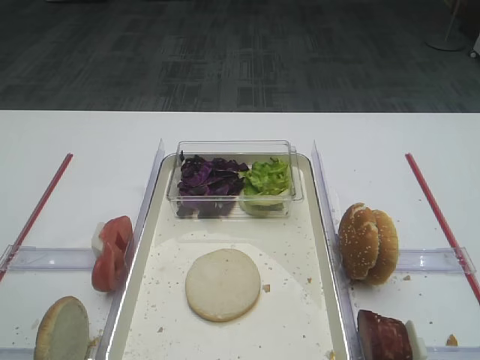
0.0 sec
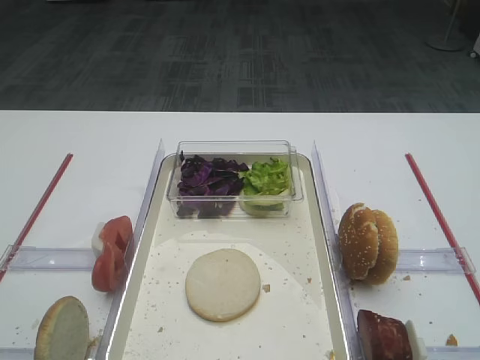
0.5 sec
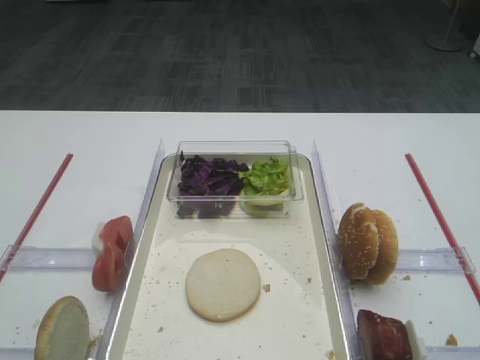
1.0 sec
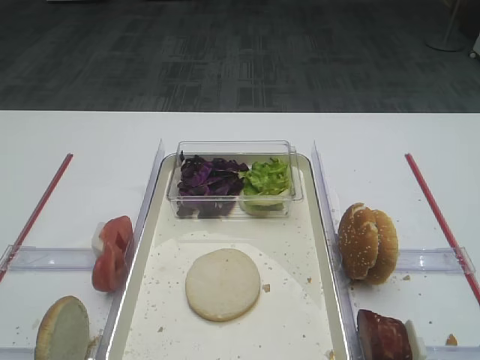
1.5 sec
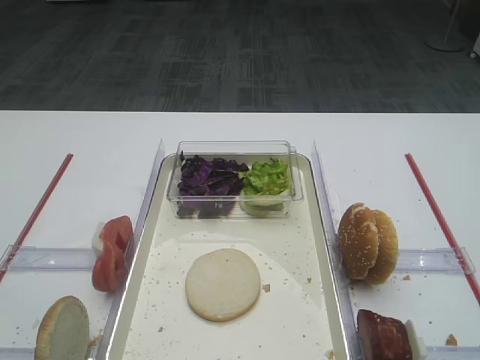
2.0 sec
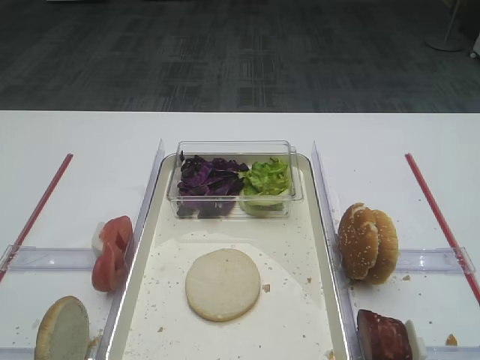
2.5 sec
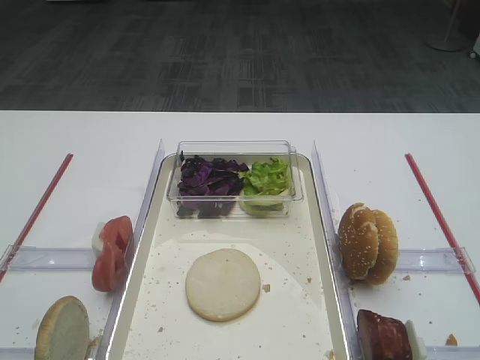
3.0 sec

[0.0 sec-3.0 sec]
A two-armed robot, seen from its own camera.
1.5 sec to 3.0 sec: Neither gripper changes place.

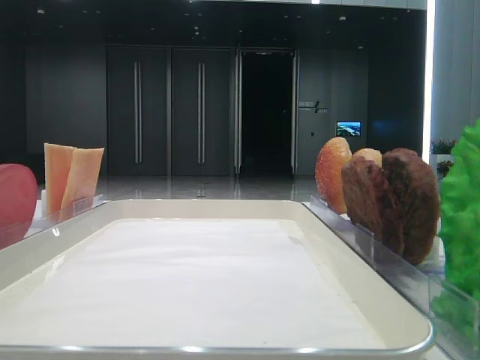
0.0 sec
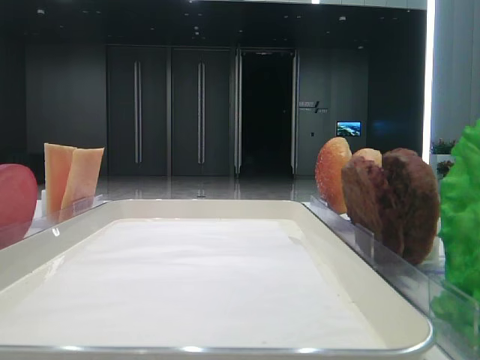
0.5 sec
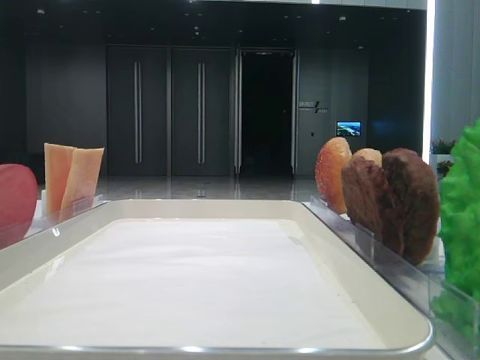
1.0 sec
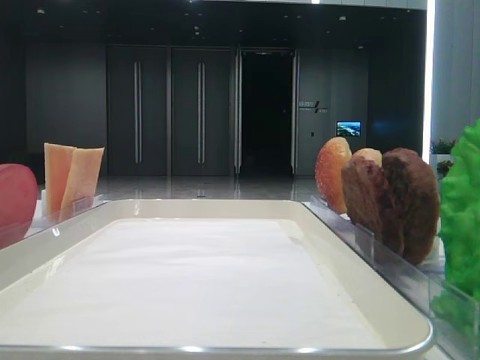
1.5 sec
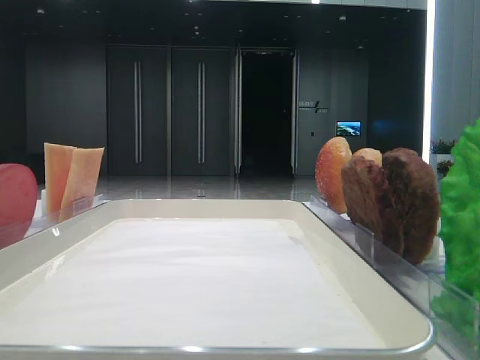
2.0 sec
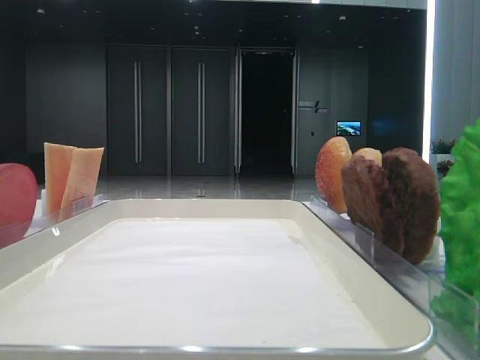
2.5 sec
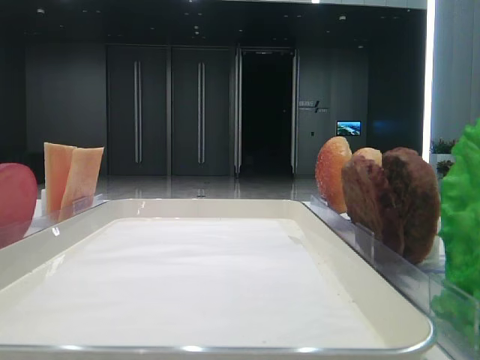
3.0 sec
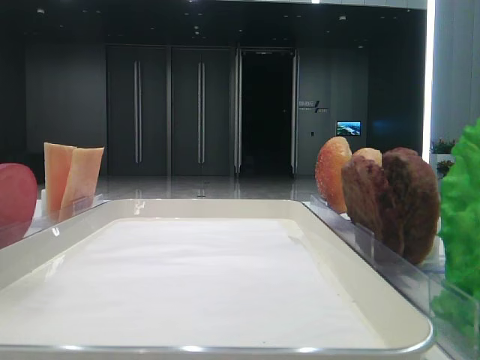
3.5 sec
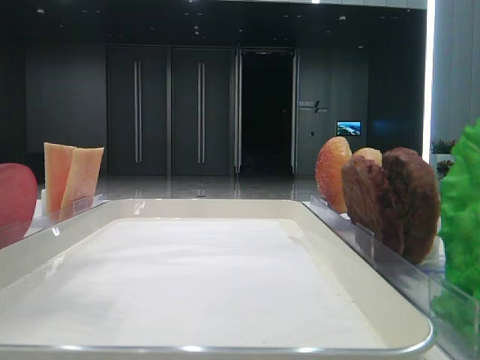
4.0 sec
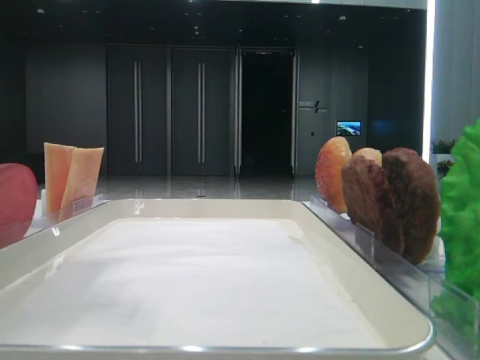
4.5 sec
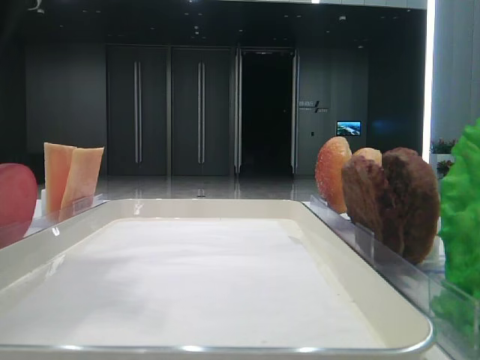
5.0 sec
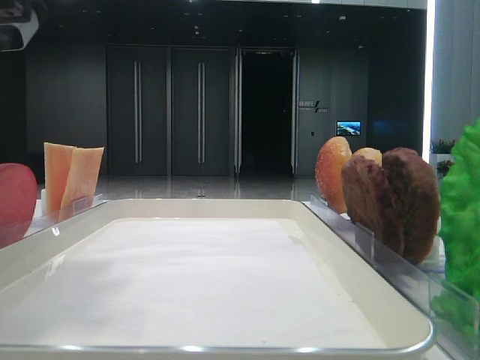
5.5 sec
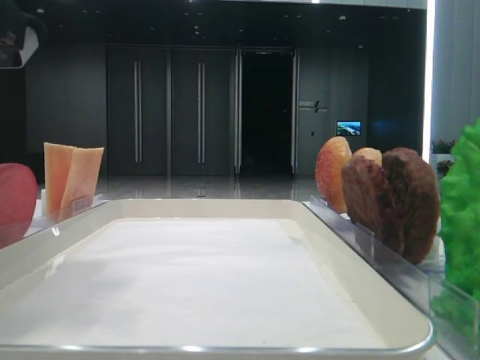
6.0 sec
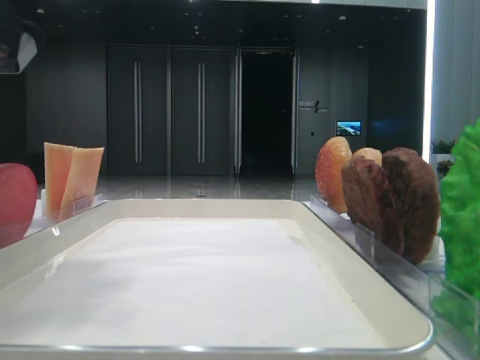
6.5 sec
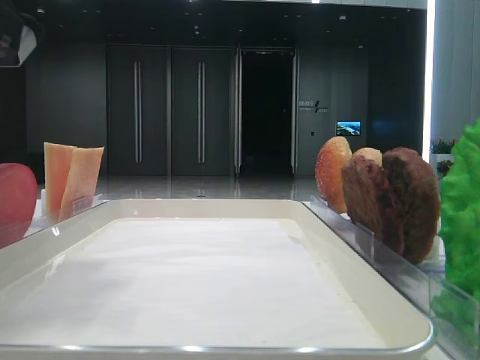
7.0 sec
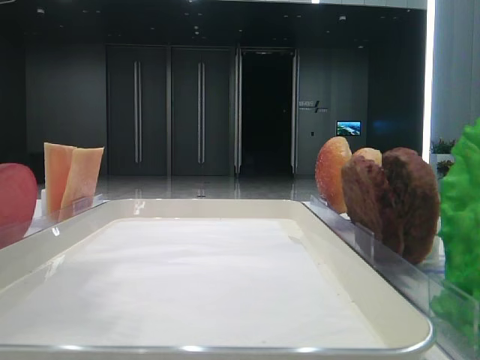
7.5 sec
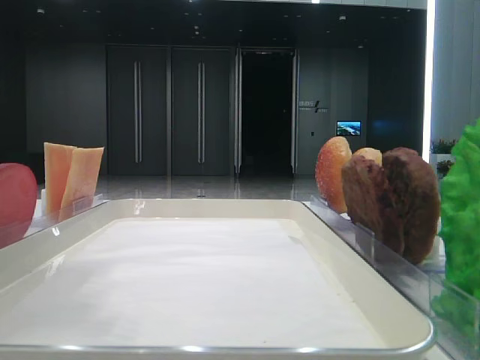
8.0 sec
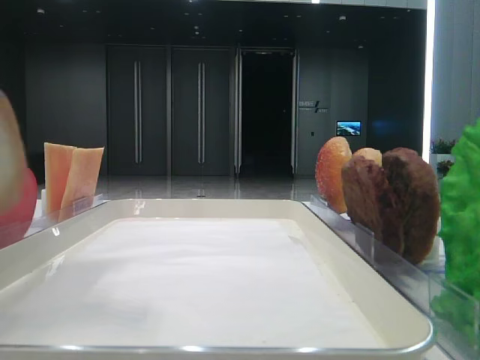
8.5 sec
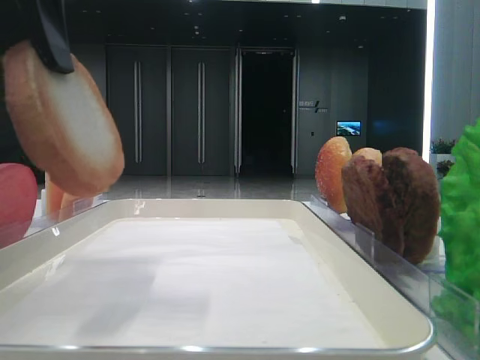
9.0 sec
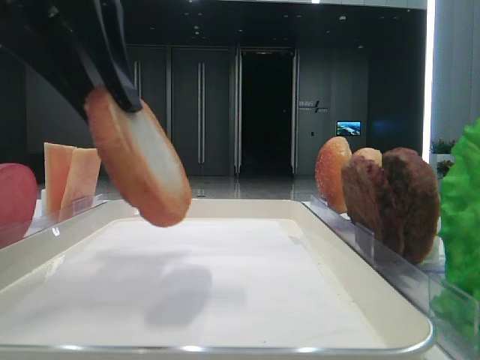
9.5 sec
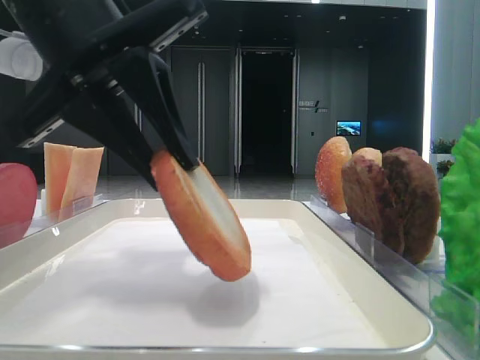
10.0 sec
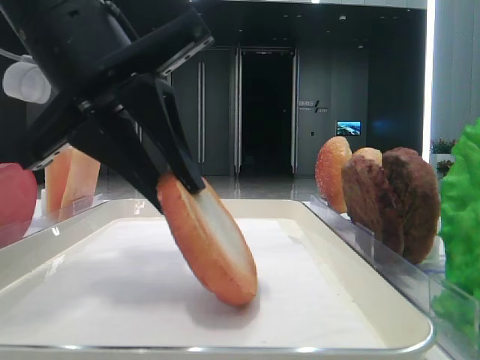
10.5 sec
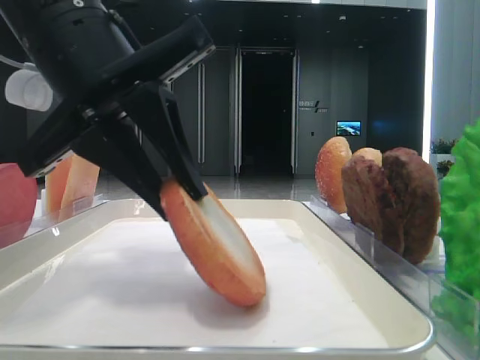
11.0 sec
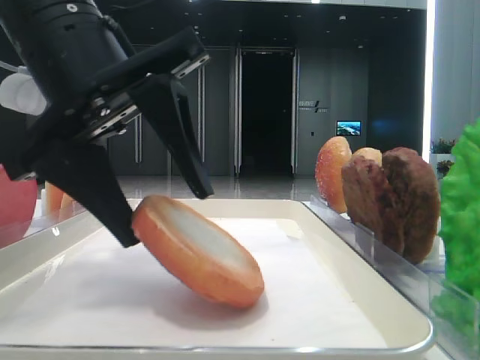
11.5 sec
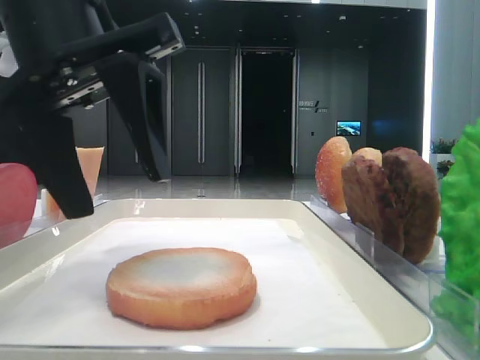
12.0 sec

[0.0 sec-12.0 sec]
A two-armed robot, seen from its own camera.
Step, 0.0 sec to 7.0 sec: Pick up the bottom bread with the left hand.
Step, 7.5 sec to 11.5 sec: Place the bread on the tray with the left hand.
2.0 sec to 4.0 sec: The left gripper moves to the right and forward, approximately 15 cm.
4.0 sec to 6.0 sec: The left gripper shifts roughly 10 cm downward.
8.0 sec to 10.0 sec: The left gripper heads to the right and downward, covering approximately 10 cm.
10.0 sec to 12.0 sec: The left gripper opens its fingers.

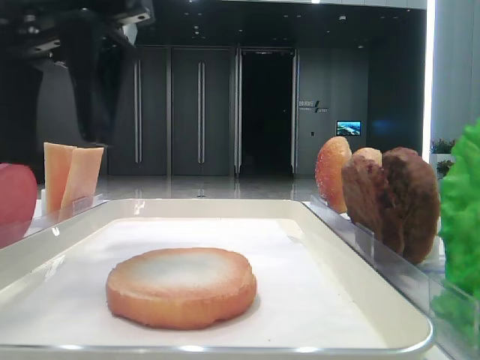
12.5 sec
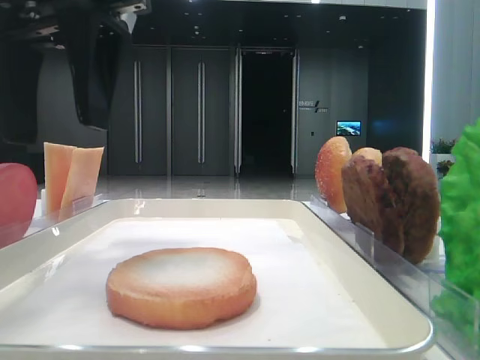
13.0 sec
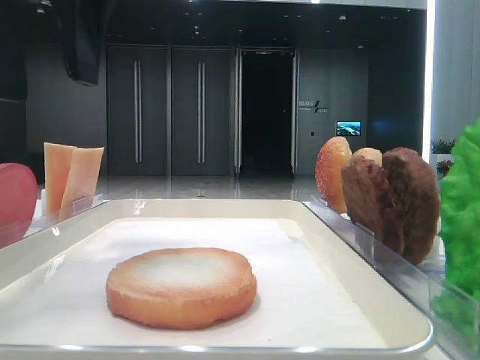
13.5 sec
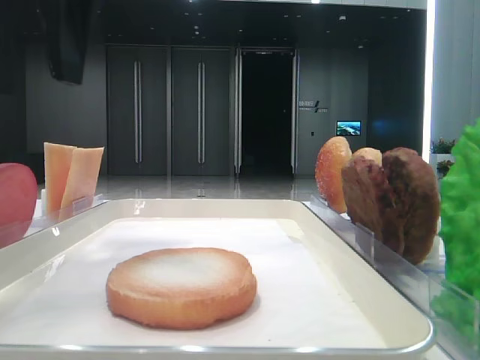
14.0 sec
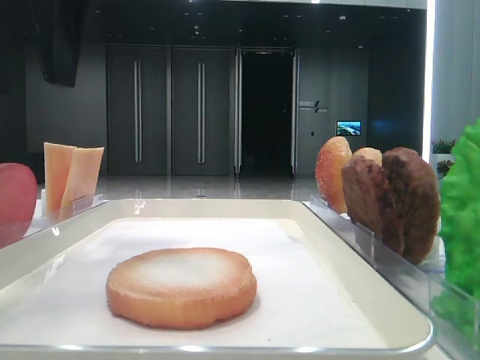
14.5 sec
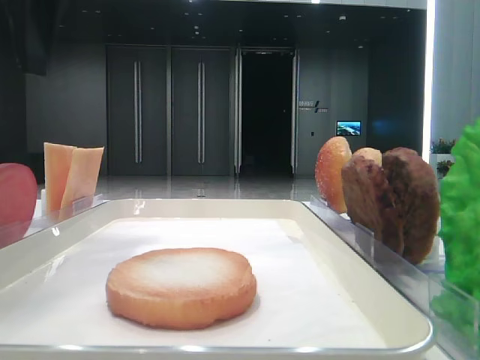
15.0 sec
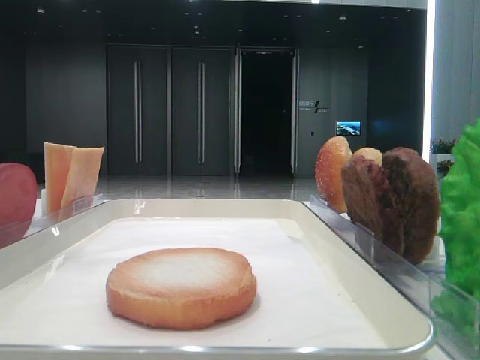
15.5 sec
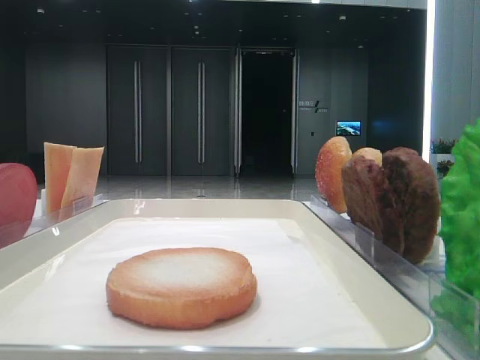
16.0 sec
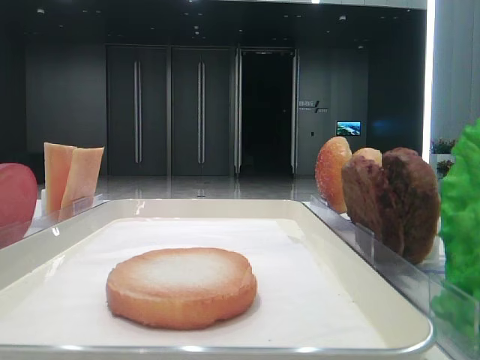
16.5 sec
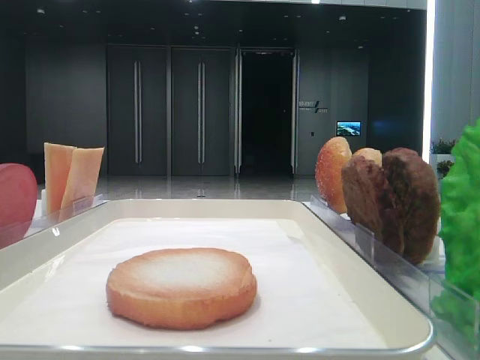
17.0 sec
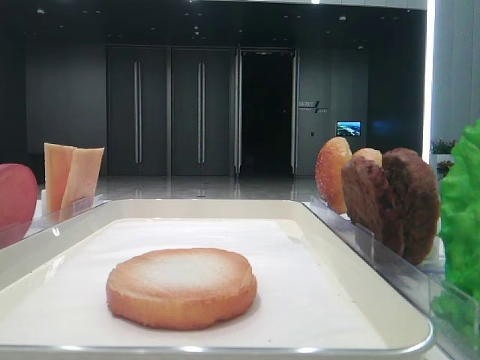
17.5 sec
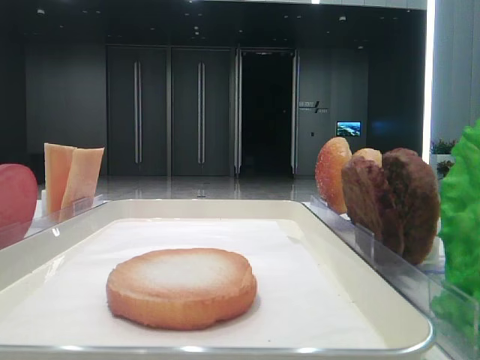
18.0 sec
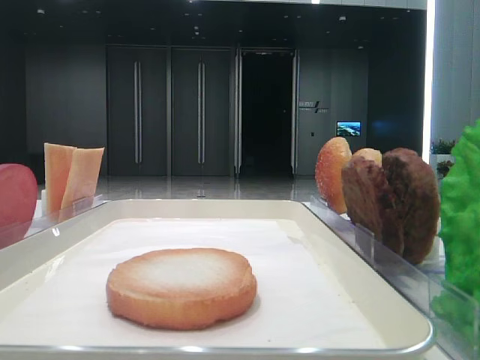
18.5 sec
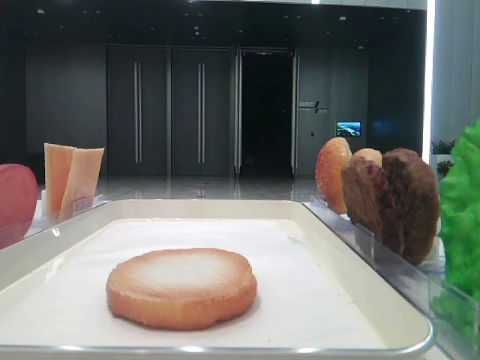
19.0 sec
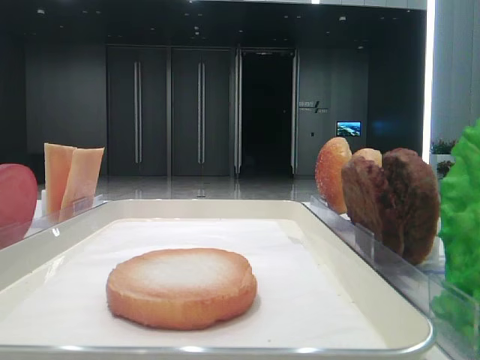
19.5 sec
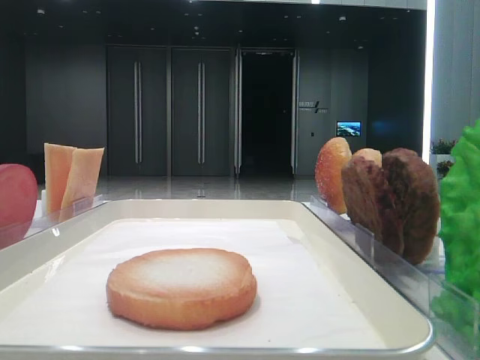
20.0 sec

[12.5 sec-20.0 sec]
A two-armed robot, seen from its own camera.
12.5 sec to 14.5 sec: The left gripper ends up some 5 cm from where it was.
14.5 sec to 16.5 sec: The left gripper is displaced to the left by roughly 15 cm.

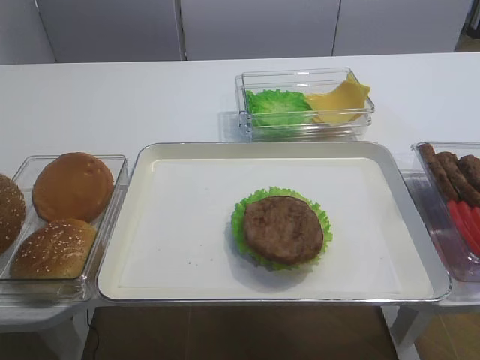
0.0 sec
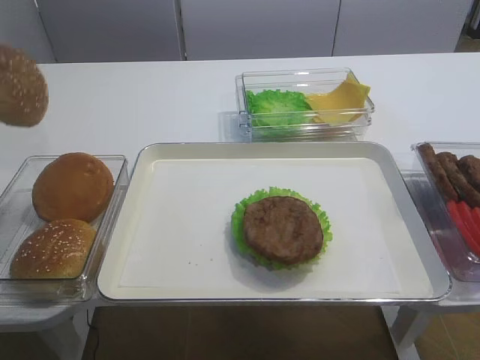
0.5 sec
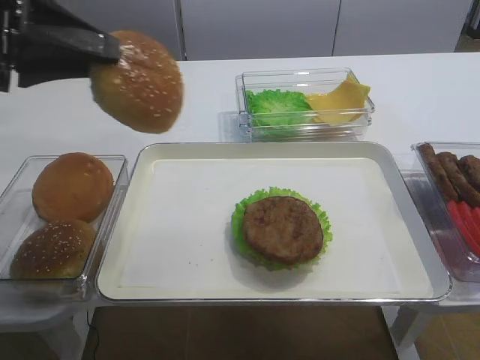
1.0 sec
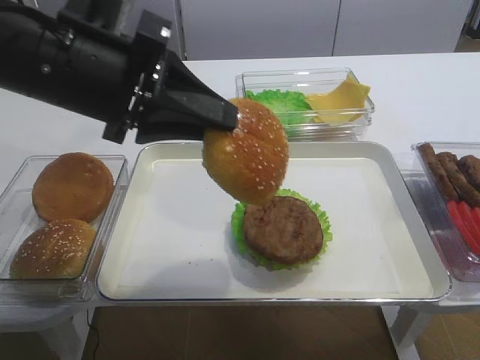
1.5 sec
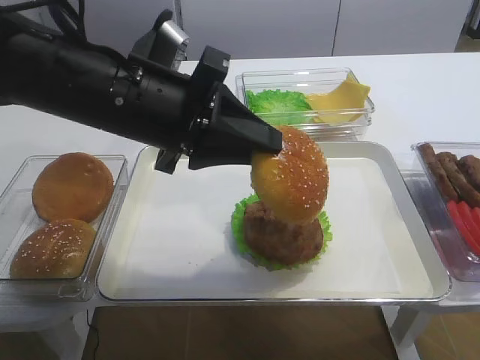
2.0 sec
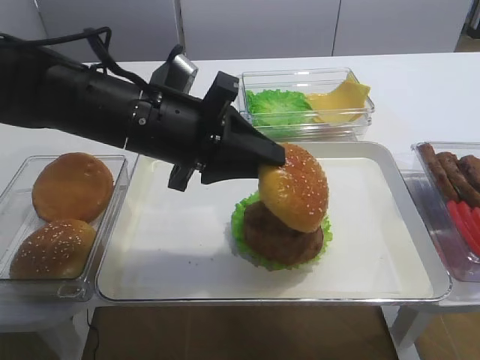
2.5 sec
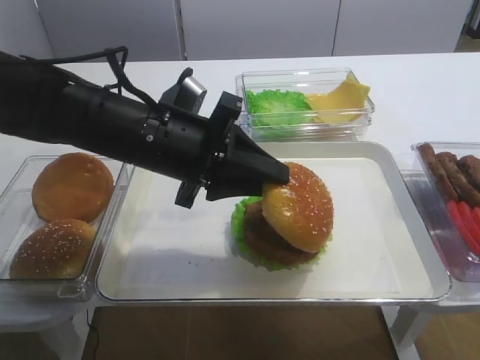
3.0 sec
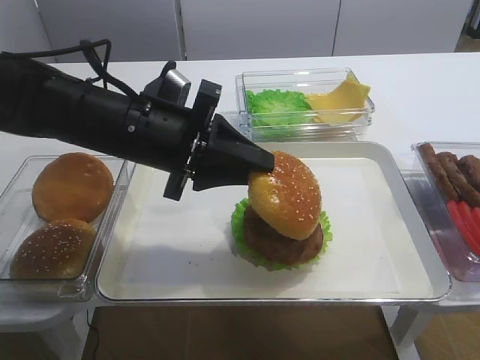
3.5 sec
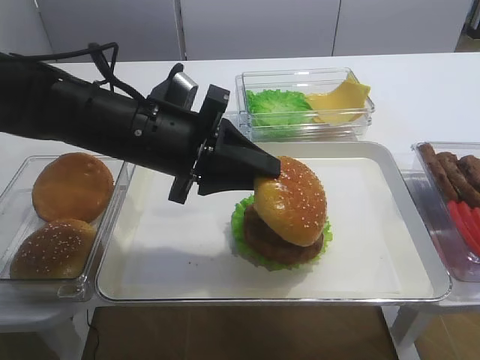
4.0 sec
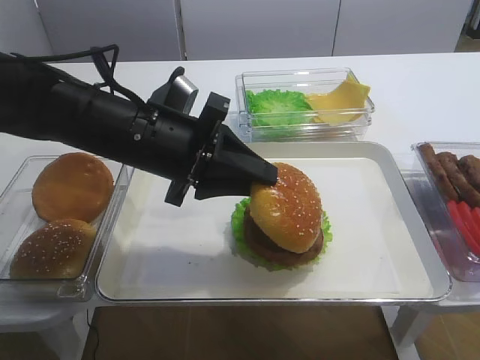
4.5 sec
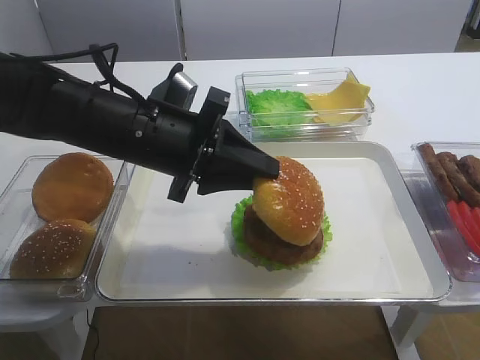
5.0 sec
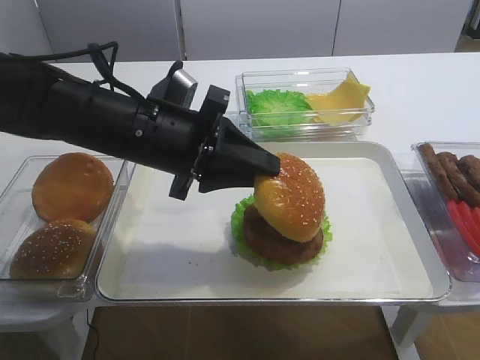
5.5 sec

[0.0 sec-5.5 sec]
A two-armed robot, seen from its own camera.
0.0 sec to 2.0 sec: The left gripper shifts roughly 25 cm to the right.
2.0 sec to 3.5 sec: The left gripper ends up about 5 cm from where it was.
3.5 sec to 5.5 sec: The two grippers keep their place.
